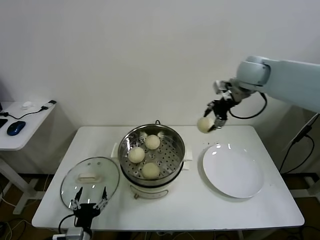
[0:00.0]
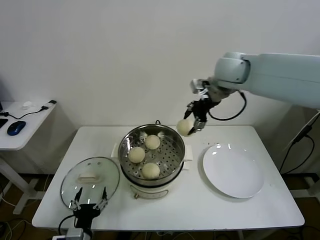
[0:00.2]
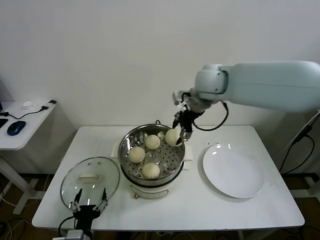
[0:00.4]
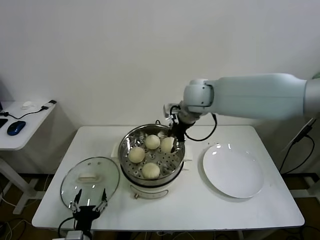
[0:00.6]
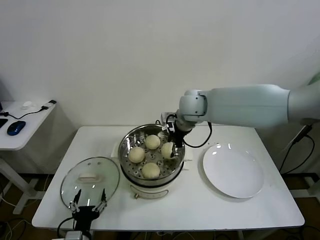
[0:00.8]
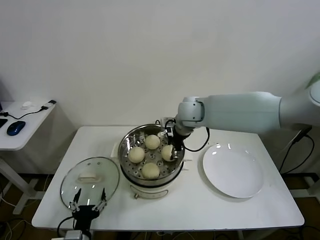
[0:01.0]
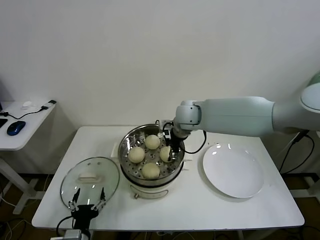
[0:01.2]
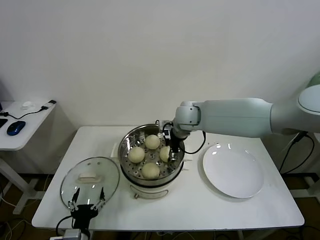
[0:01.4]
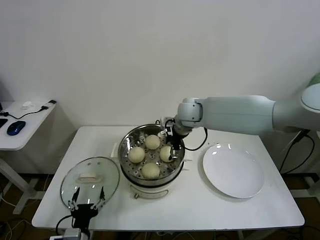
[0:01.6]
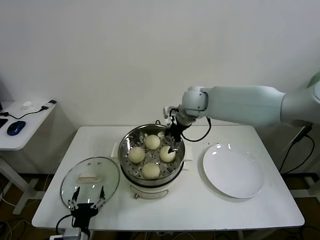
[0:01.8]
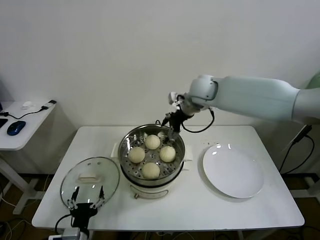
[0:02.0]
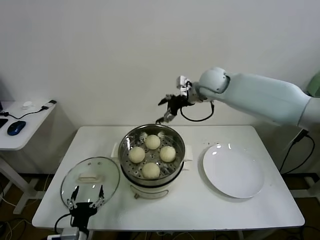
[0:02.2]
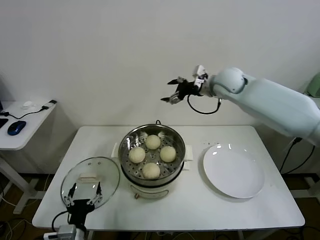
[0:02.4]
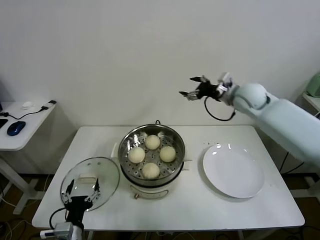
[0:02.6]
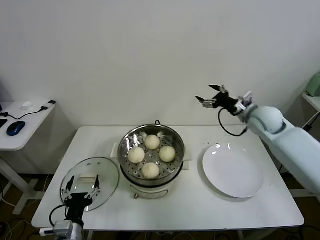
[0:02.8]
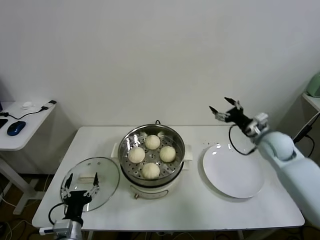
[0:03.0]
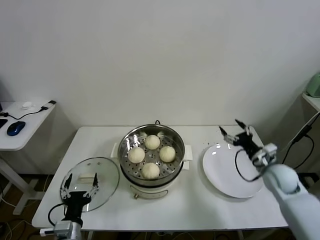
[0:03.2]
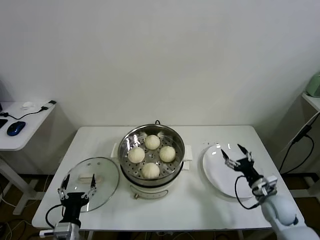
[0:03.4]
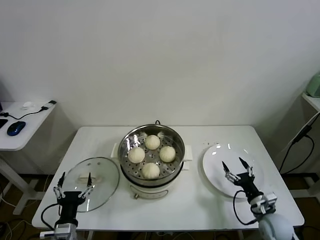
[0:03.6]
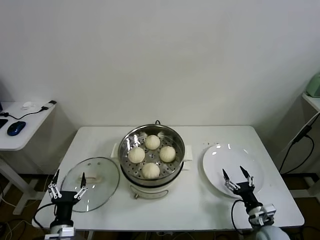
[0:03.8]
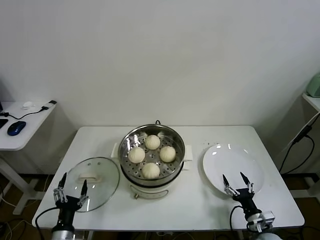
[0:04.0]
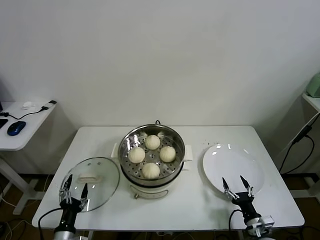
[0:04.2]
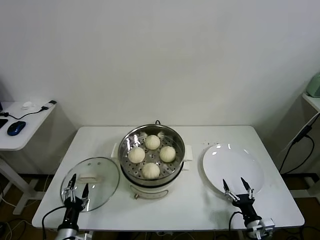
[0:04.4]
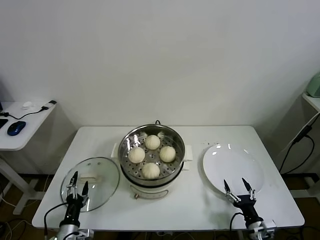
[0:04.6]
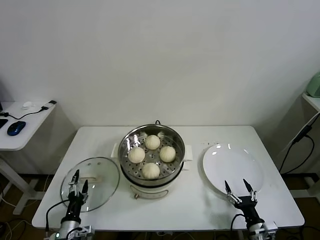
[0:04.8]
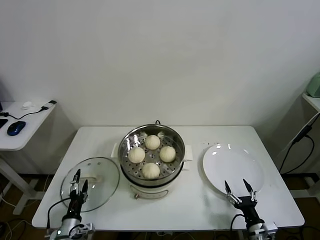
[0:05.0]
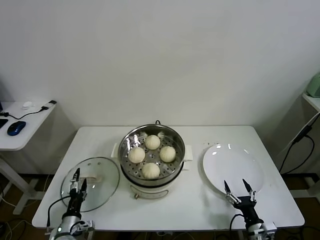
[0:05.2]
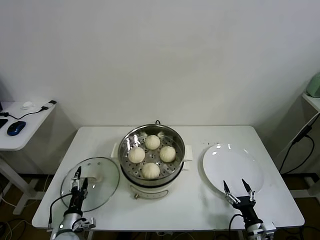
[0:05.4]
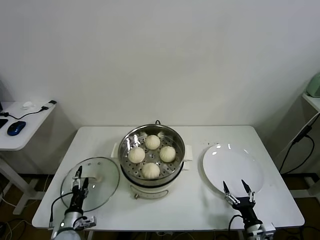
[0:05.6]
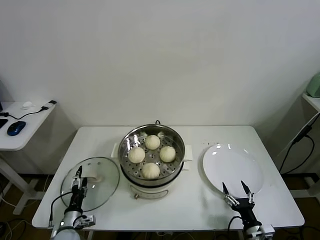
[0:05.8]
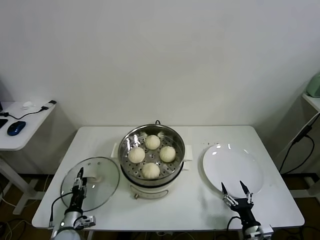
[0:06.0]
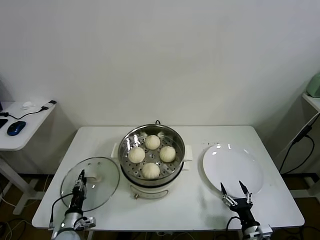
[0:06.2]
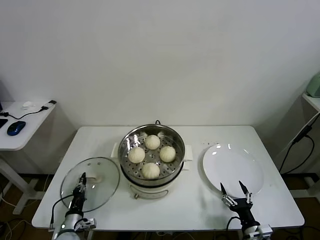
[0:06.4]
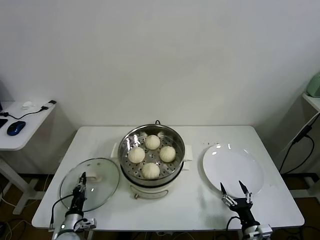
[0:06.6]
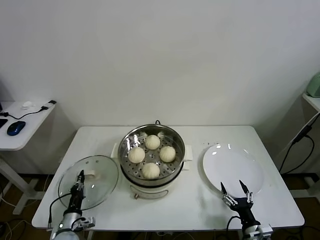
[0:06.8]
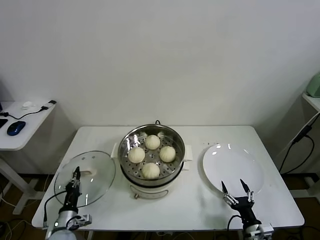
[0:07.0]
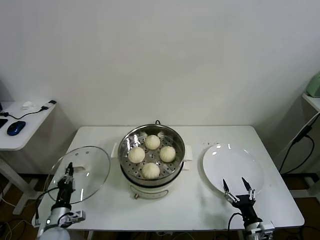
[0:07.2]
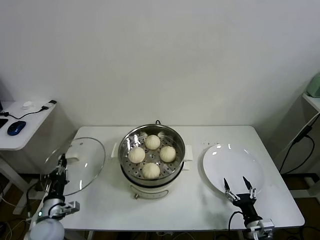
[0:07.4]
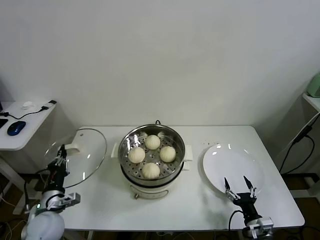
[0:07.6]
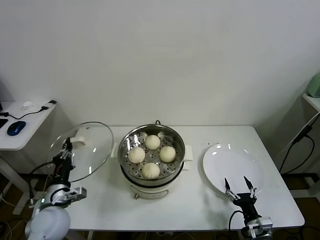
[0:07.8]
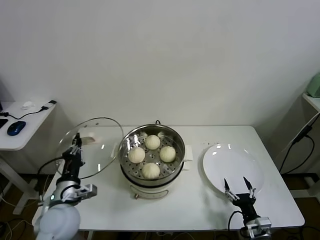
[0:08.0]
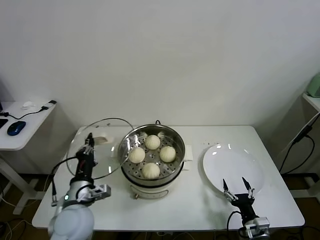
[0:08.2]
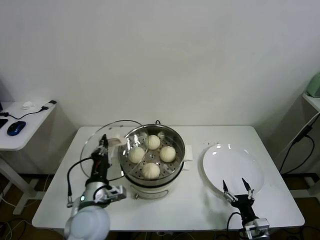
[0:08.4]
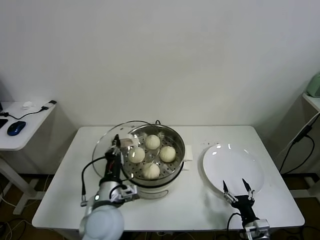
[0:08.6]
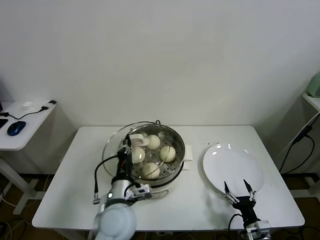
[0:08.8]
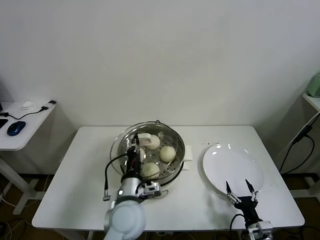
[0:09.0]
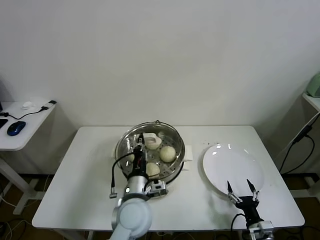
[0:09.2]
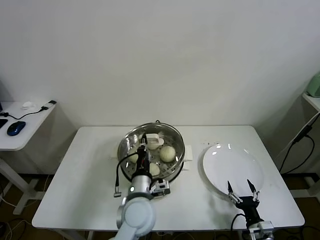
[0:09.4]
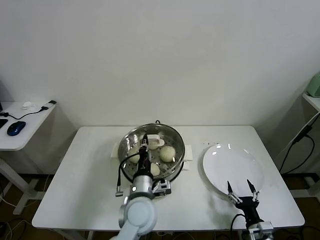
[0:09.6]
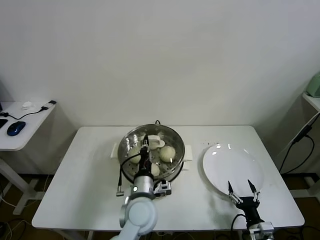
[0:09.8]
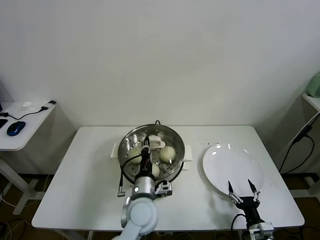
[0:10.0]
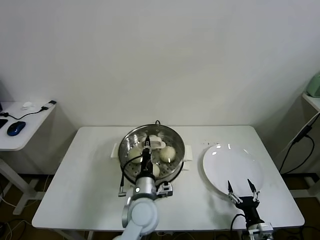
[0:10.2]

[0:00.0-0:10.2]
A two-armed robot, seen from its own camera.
Task of the whole recording: take steamed baozi put them in steamer.
Step, 0:00.0 to 0:01.6: Place the baozi on the steamer with right gripper.
Step, 0:01.8 to 0:06.4: Grasp the pot lid with left gripper.
0:00.0 to 0:01.4: The right gripper goes approximately 25 cm to the left and downward.
0:01.4 to 0:03.0: The right gripper heads to the right, covering roughly 30 cm, and opens.
0:03.0 to 0:04.4: The left gripper travels downward and to the left by about 10 cm; the right gripper travels backward and downward by about 35 cm.
0:04.4 to 0:05.8: The left gripper goes roughly 5 cm forward.
0:05.8 to 0:07.2: The left gripper closes up.
0:07.2 to 0:08.8: The left gripper is displaced to the right and upward by some 30 cm.
0:08.8 to 0:10.2: The left gripper goes about 5 cm to the right.

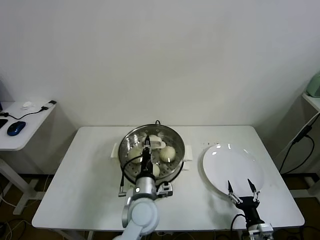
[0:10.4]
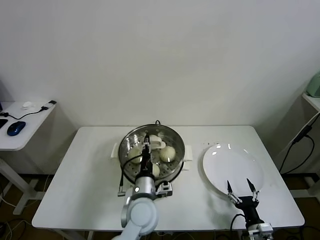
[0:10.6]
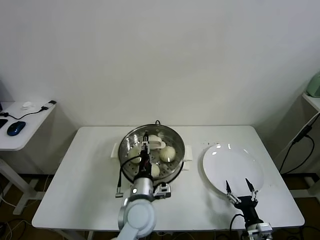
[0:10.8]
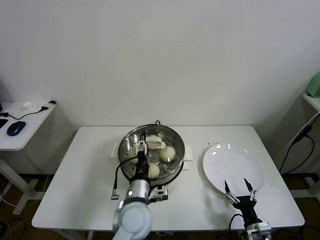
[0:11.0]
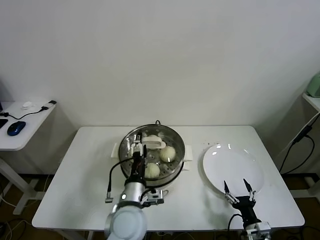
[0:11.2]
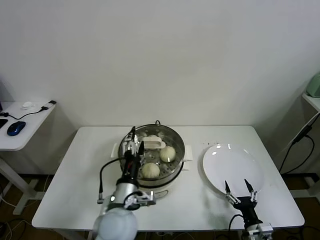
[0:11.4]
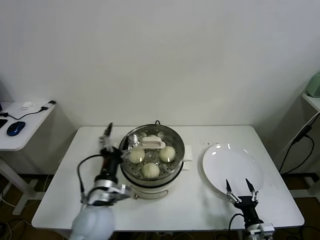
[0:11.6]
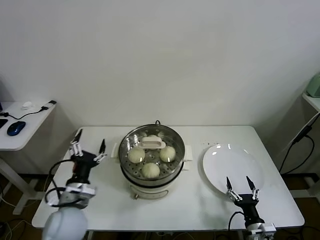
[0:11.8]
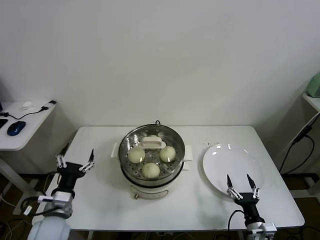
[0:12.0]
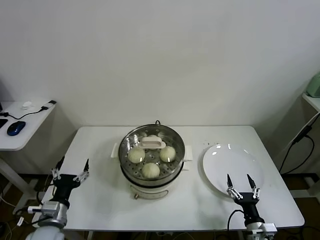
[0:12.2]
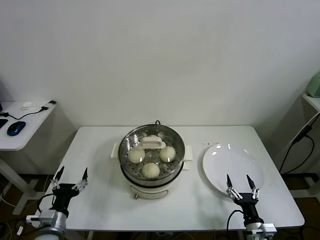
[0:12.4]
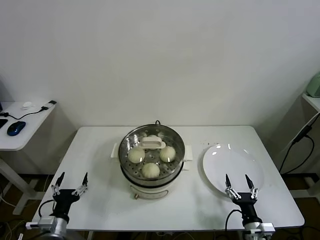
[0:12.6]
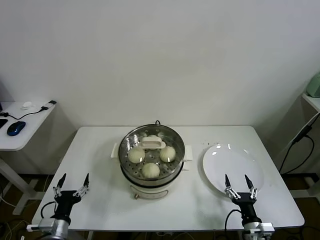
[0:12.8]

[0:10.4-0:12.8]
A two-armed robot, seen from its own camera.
Task of the whole recording: take steamed baozi put them in steamer.
0:10.4 to 0:11.6: The left gripper moves to the left and upward, some 10 cm, and opens up.
0:11.6 to 0:12.8: The left gripper travels to the left and downward by about 25 cm.

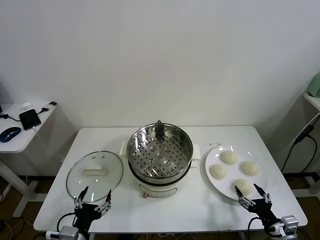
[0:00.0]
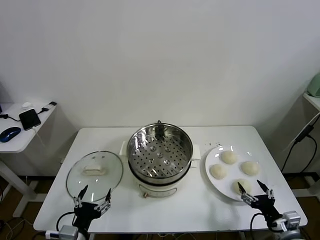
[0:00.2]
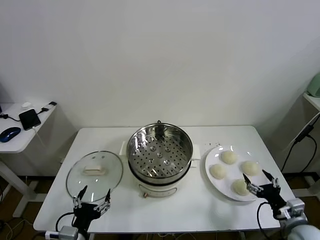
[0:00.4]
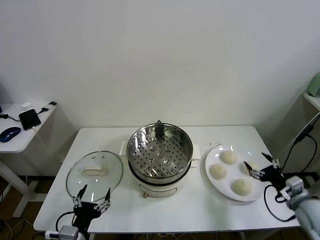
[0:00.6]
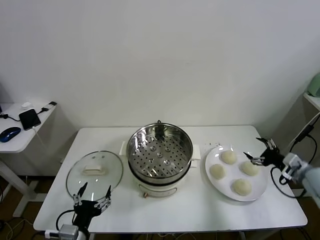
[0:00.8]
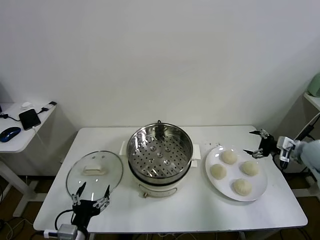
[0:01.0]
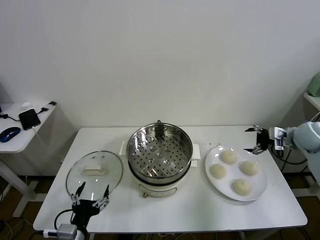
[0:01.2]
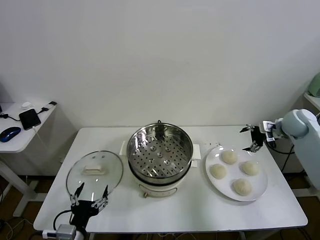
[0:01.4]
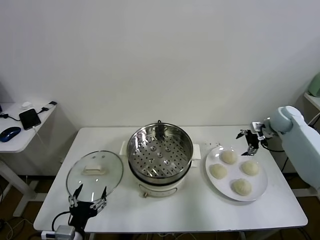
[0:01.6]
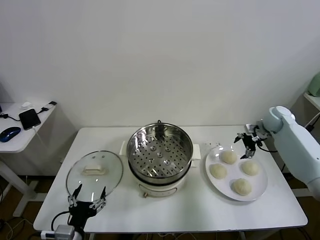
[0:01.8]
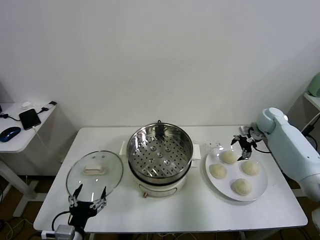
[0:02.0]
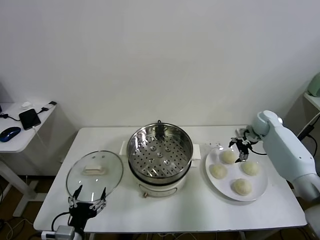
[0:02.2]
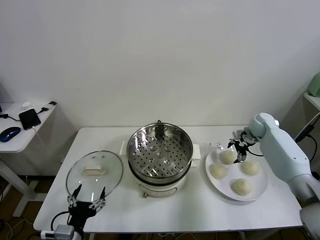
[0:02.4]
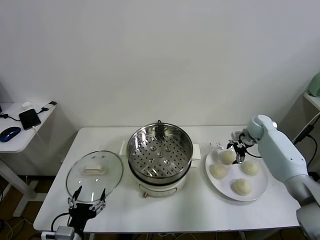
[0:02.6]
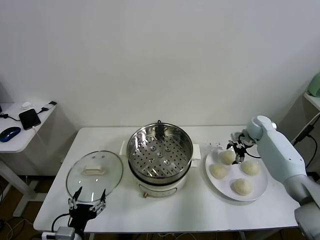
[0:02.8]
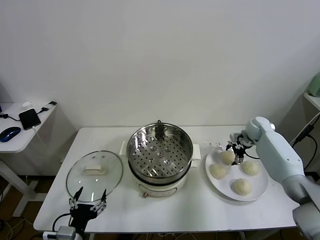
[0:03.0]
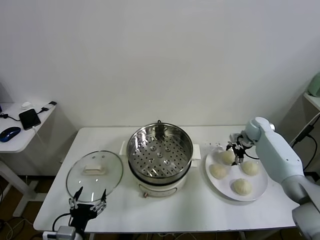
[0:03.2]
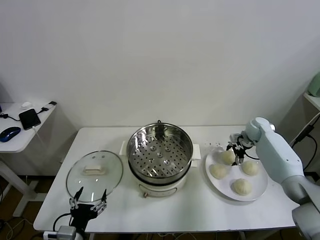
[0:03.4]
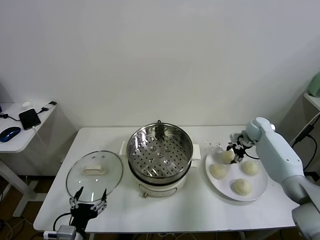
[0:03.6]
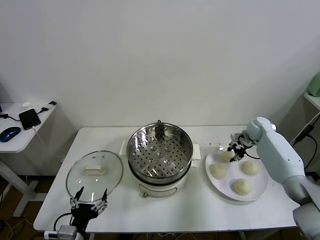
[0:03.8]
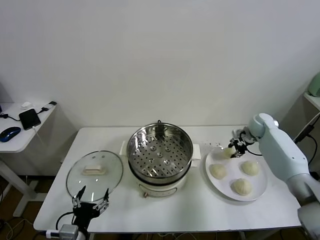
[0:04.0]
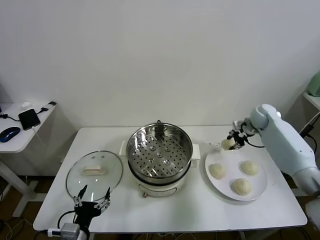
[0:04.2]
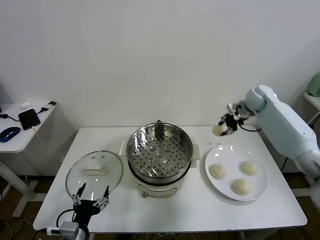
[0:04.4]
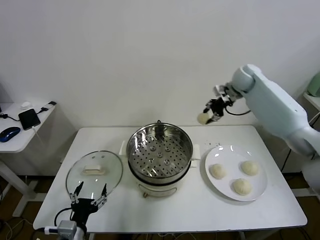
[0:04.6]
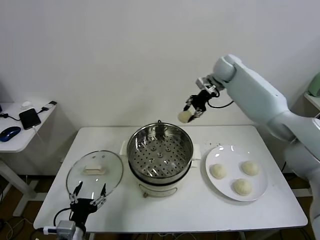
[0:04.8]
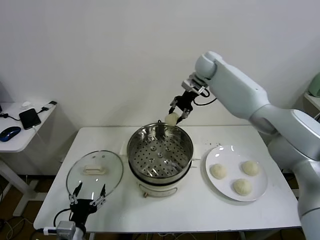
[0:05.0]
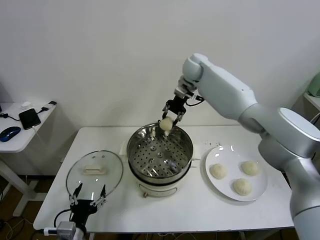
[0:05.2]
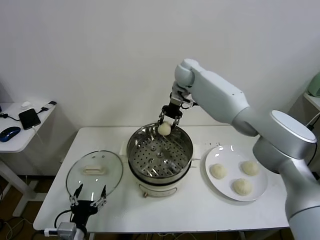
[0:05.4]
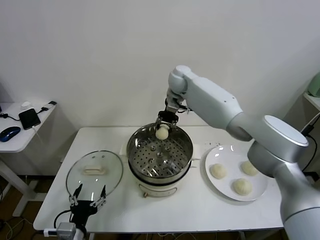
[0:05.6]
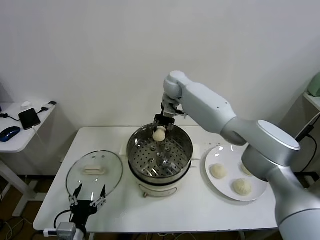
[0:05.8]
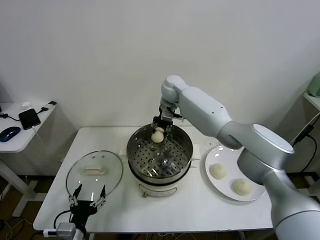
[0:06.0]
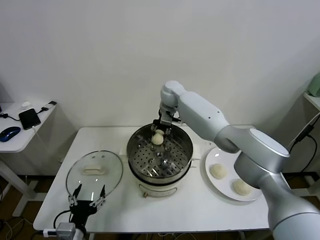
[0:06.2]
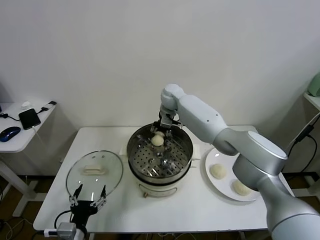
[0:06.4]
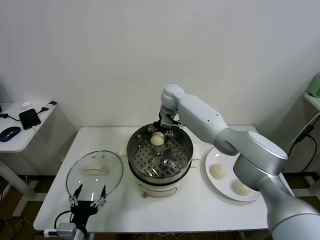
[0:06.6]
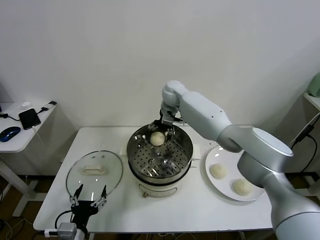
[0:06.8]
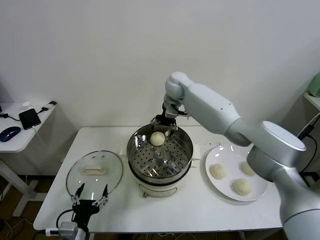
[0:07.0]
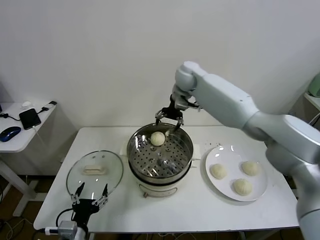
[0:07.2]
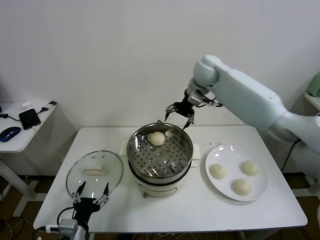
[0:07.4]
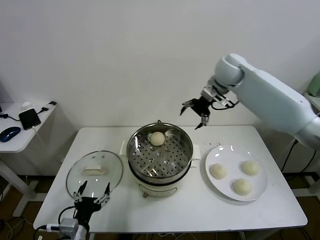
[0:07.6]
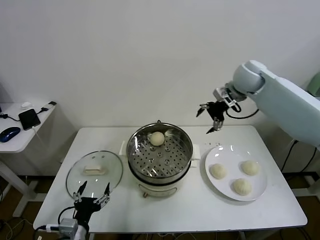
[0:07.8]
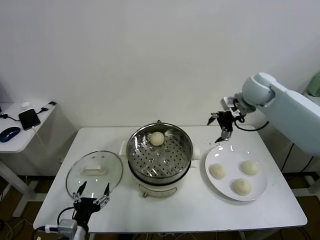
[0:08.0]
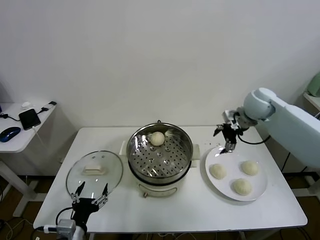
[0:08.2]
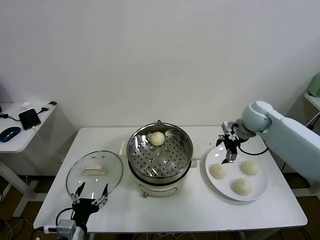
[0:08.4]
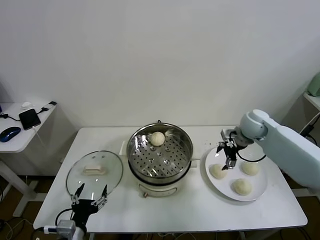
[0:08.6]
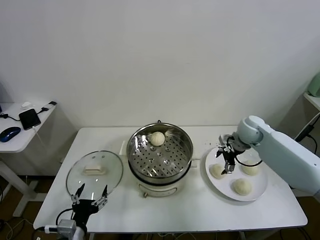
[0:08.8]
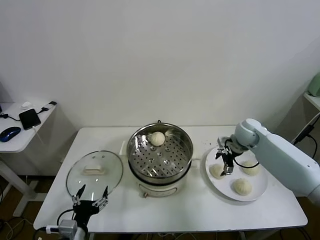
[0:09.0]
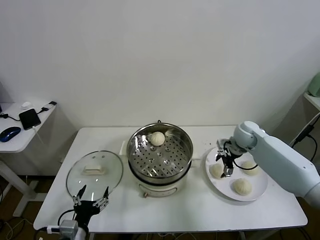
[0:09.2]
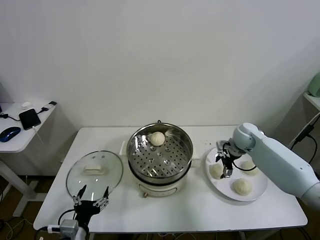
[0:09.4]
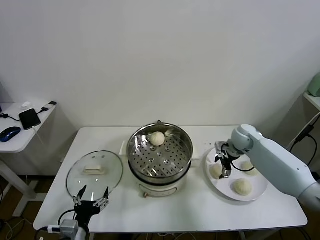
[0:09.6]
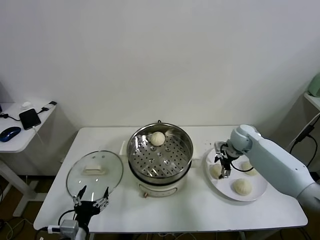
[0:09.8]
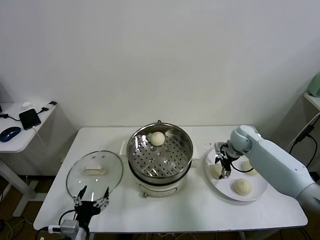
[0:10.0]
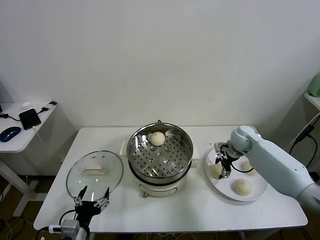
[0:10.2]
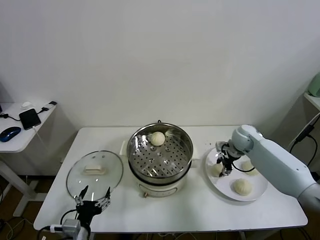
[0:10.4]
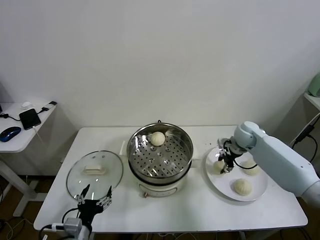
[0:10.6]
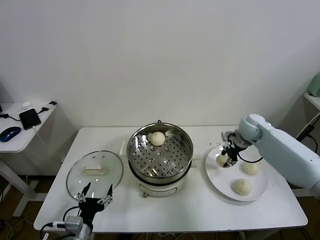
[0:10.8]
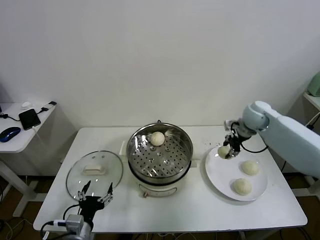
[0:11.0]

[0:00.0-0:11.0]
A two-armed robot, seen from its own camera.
Task of the whole recording: take steamed baozi put them in steamer.
Step, 0:00.0 to 0:03.6: Grasp the baozi in the plate with right gripper.
Step, 0:03.8 to 0:06.6: Place the baozi on the steamer with right gripper.
Step, 0:06.8 to 0:10.2: Grasp the baozi in the plate with right gripper.
0:01.6 to 0:03.2: The right gripper shifts approximately 10 cm downward.
0:03.2 to 0:04.8: The right gripper goes some 35 cm upward and to the left, and closes.
0:04.8 to 0:06.2: The right gripper moves to the left and downward, roughly 20 cm.
0:06.2 to 0:07.8: The right gripper heads to the right and upward, covering approximately 25 cm, and opens up.
0:07.8 to 0:09.4: The right gripper is displaced downward by some 25 cm.
0:09.4 to 0:11.0: The right gripper goes some 15 cm upward, and closes its fingers.
